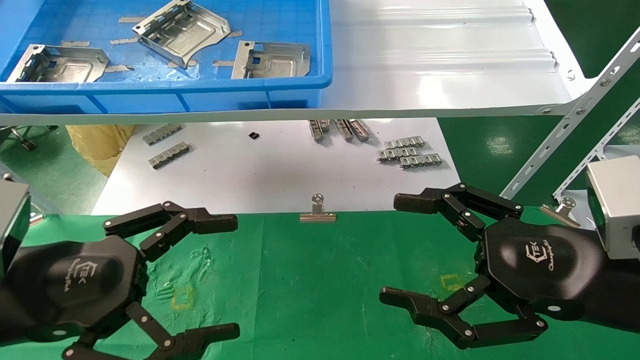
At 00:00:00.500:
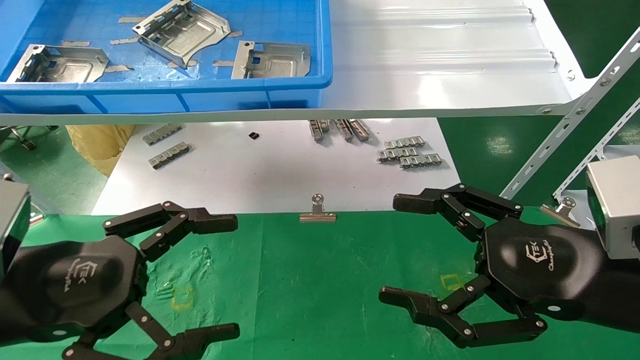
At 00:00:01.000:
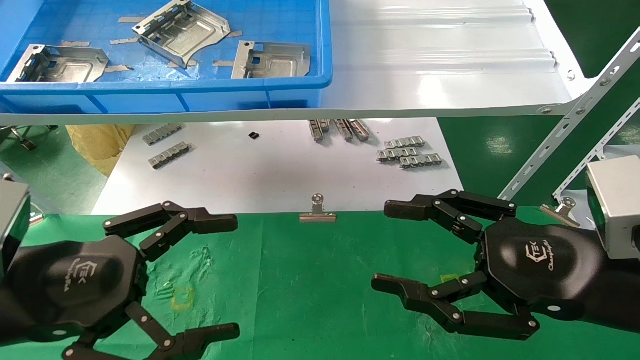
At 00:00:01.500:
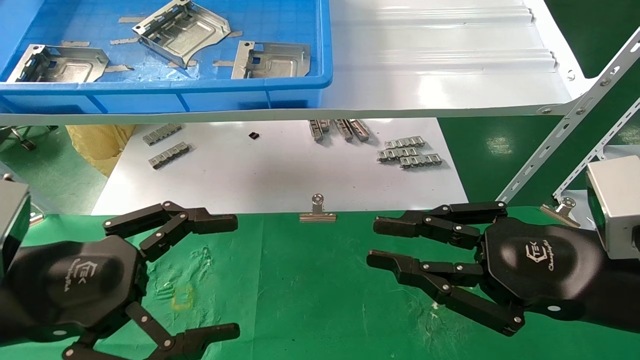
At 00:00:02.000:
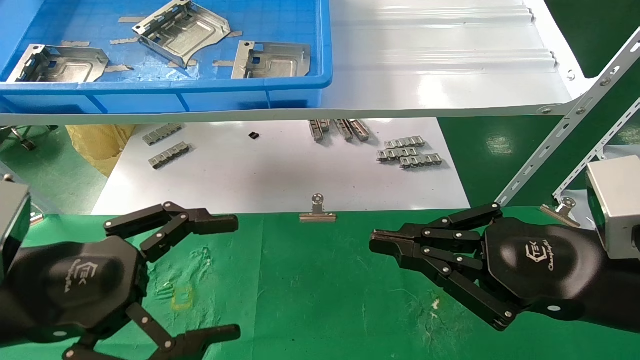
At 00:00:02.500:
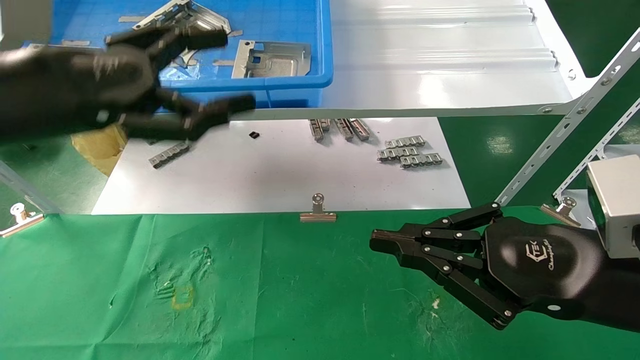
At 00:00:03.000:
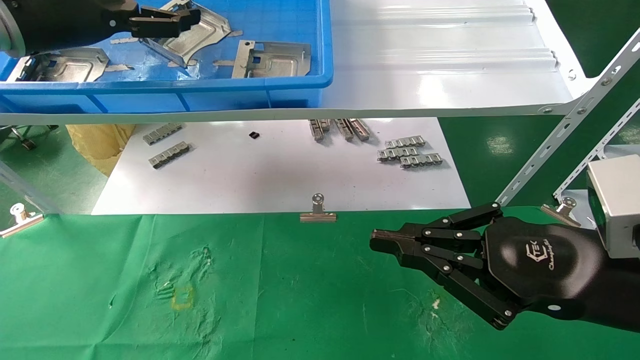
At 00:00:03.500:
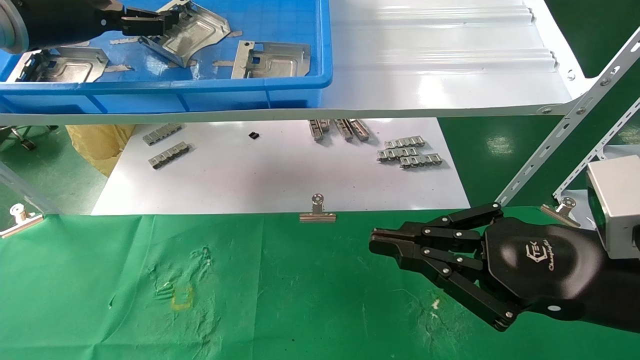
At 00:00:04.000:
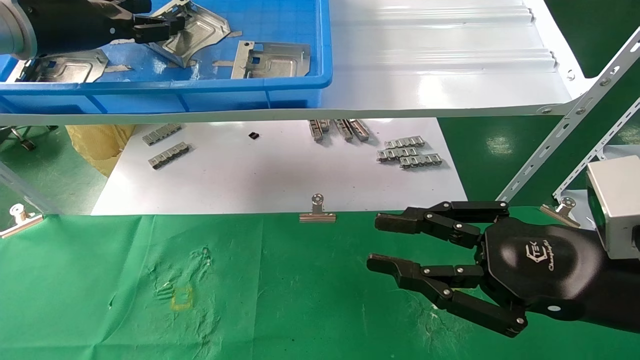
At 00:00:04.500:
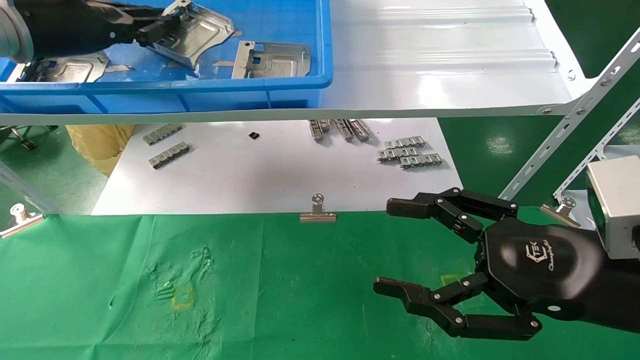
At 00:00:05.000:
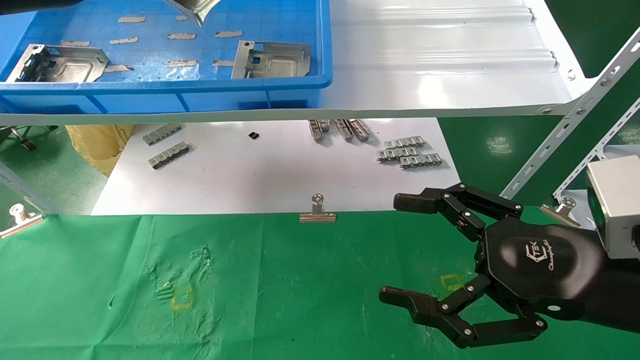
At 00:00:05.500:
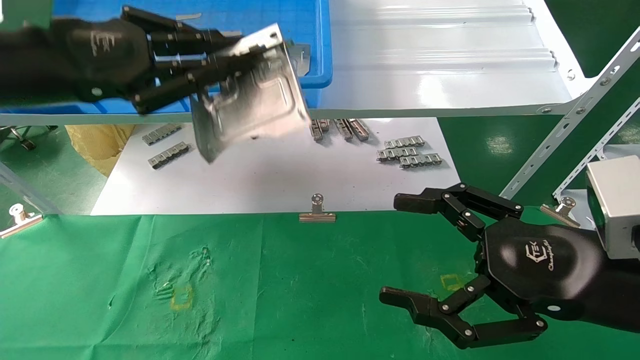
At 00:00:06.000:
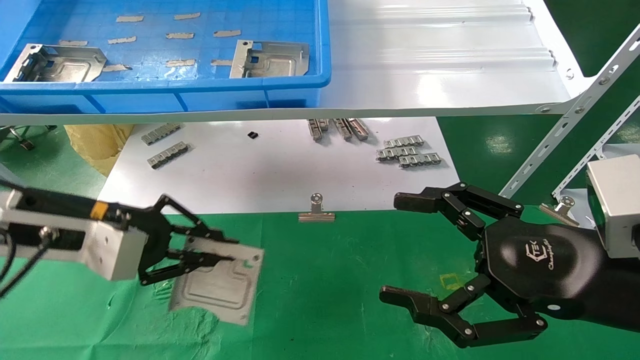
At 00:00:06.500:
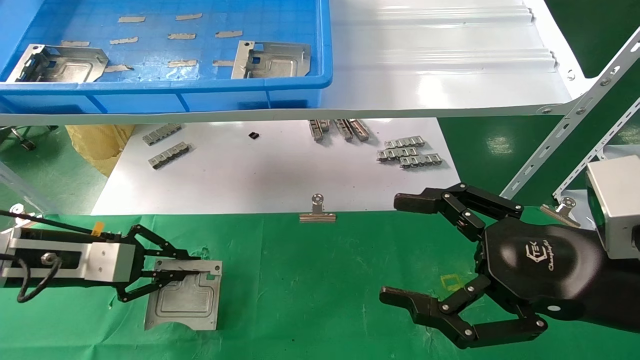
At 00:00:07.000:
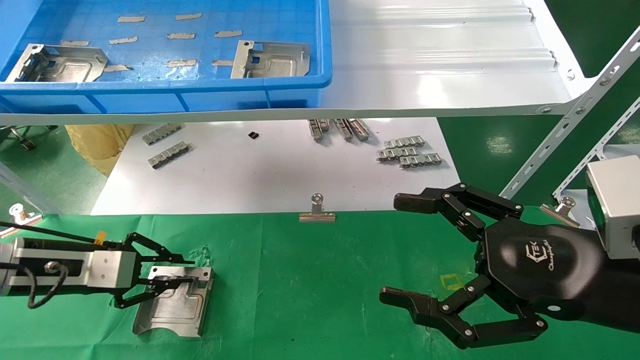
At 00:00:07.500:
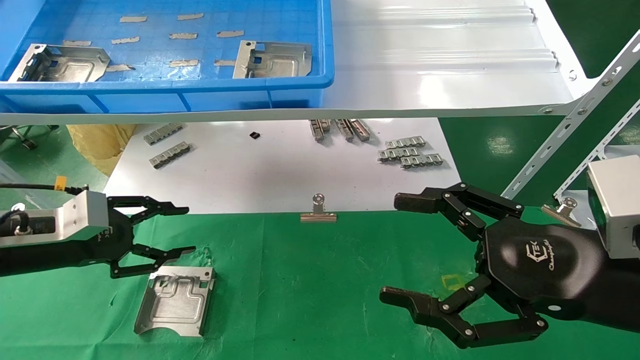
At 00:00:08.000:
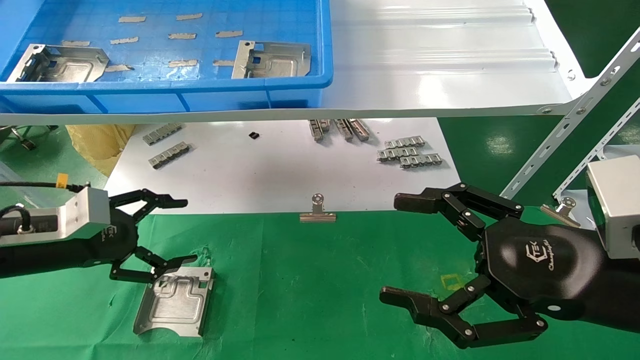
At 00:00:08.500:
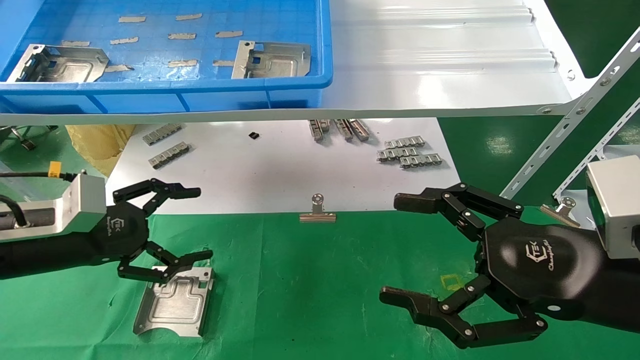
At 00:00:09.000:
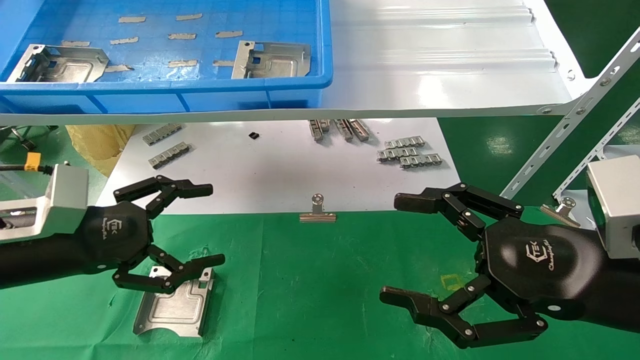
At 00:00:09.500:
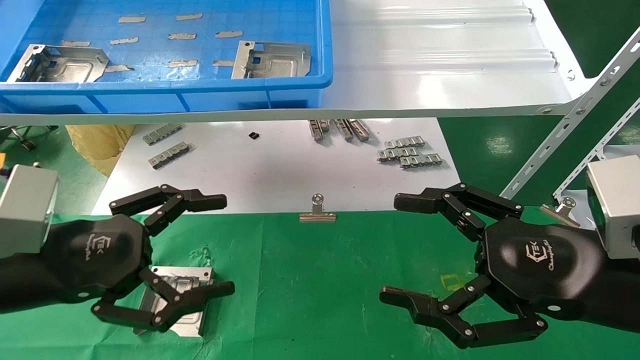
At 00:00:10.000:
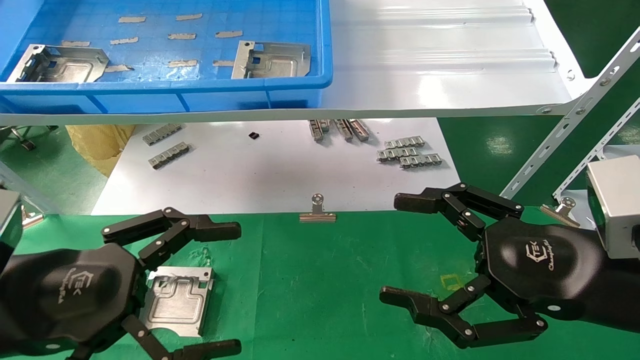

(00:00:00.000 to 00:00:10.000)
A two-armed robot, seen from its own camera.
Task of the whole recording: use the mechanical arm to pick up the parts and place them on the table.
Step, 00:00:02.500 - 00:00:04.500: Pick up the hard drive bracket from the feeding area.
Step, 00:00:05.000 - 00:00:06.500: Place the hard drive bracket into the box.
00:00:00.000 - 00:00:02.000: The right gripper closes.
00:00:02.000 - 00:00:04.000: The left gripper travels forward and upward by about 30 cm.
00:00:04.000 - 00:00:06.000: The right gripper opens; the left gripper goes about 20 cm downward and backward, and closes its fingers.
00:00:06.000 - 00:00:08.000: The left gripper travels downward and to the left by roughly 10 cm, and opens.
00:00:08.000 - 00:00:10.000: The left gripper shifts roughly 15 cm backward and to the right.

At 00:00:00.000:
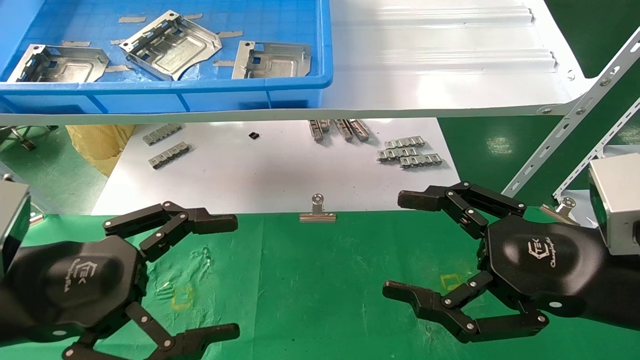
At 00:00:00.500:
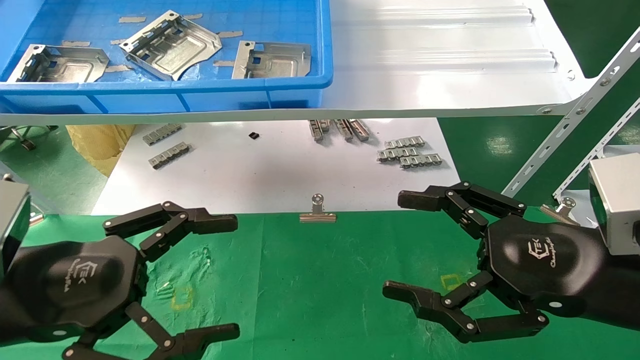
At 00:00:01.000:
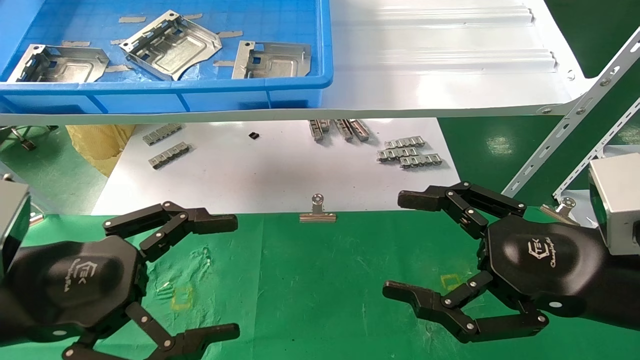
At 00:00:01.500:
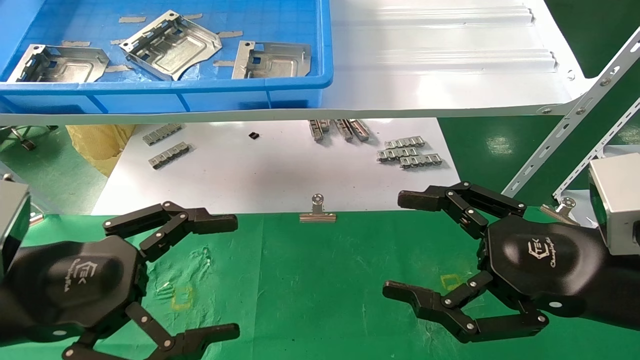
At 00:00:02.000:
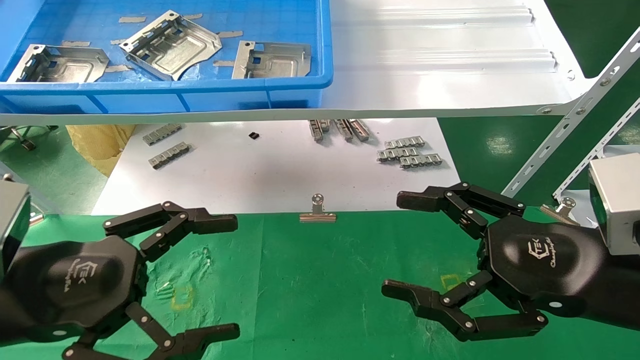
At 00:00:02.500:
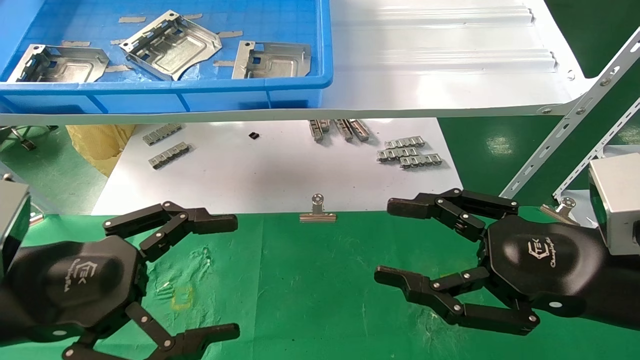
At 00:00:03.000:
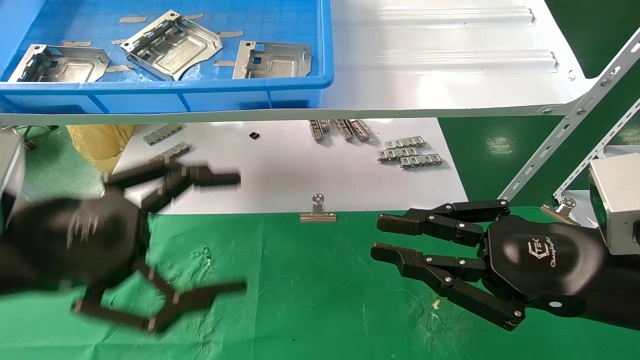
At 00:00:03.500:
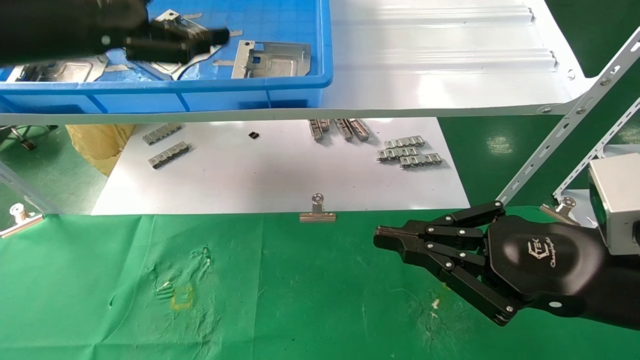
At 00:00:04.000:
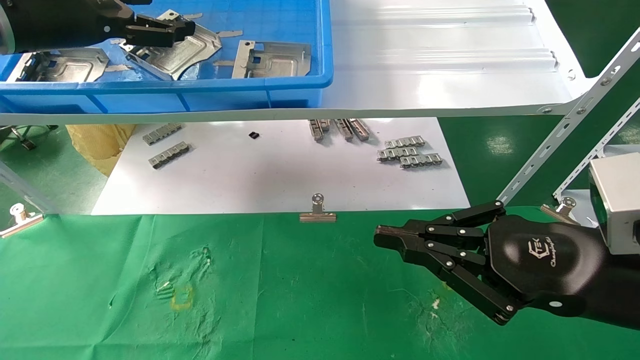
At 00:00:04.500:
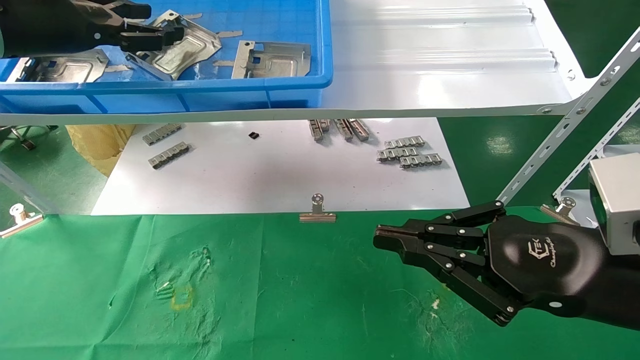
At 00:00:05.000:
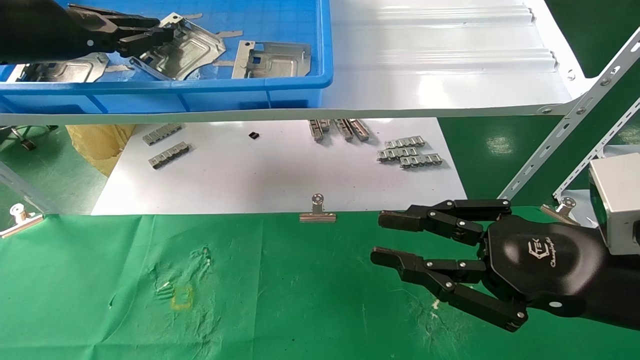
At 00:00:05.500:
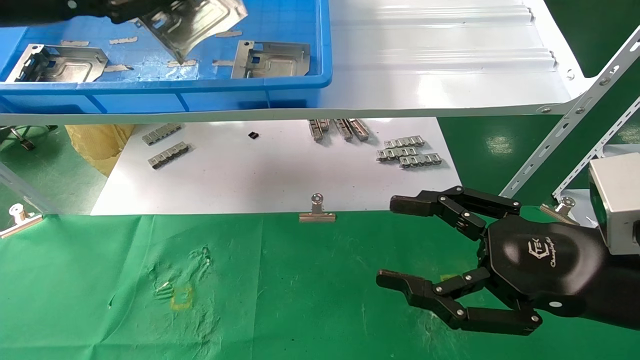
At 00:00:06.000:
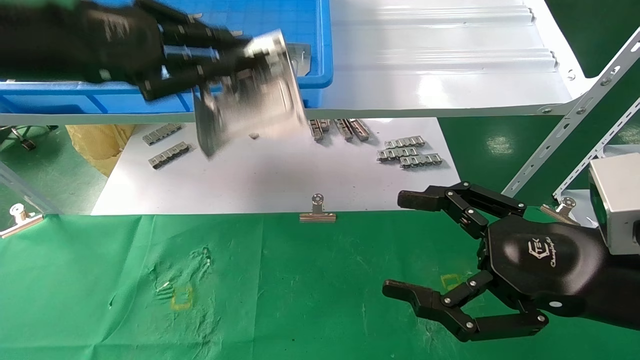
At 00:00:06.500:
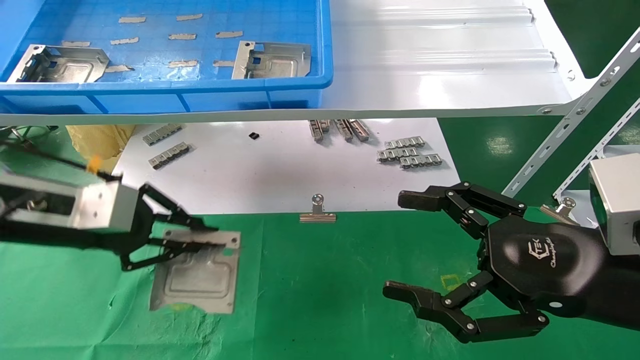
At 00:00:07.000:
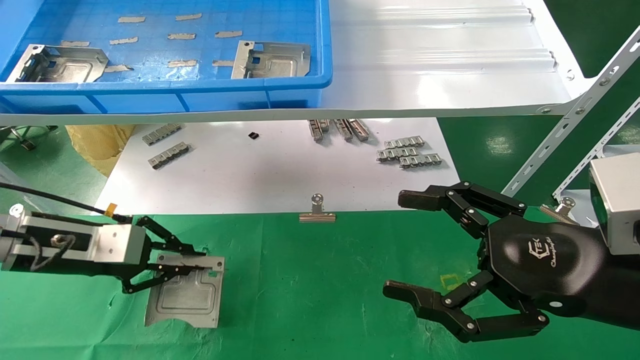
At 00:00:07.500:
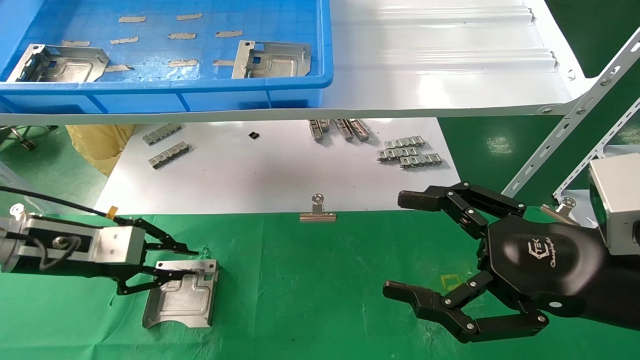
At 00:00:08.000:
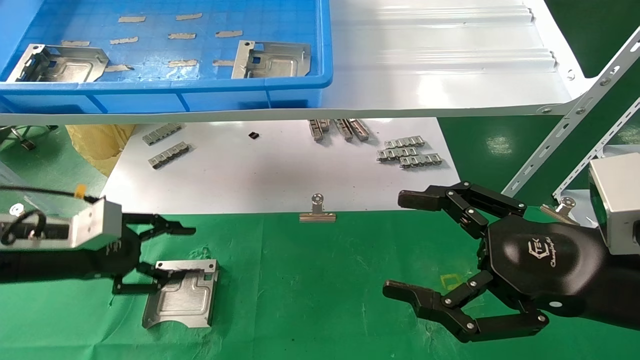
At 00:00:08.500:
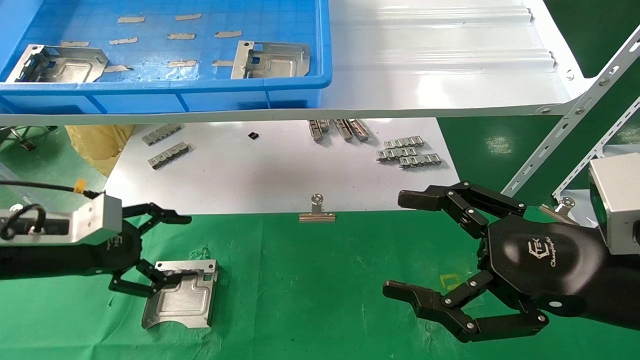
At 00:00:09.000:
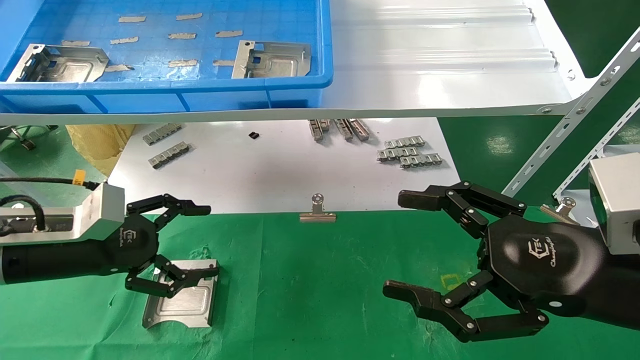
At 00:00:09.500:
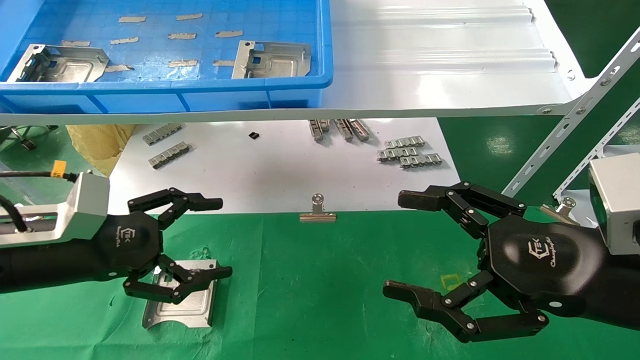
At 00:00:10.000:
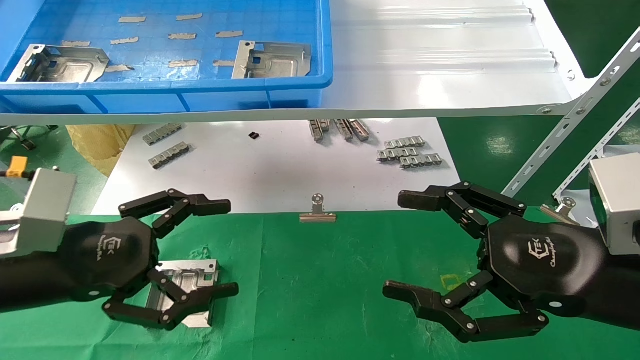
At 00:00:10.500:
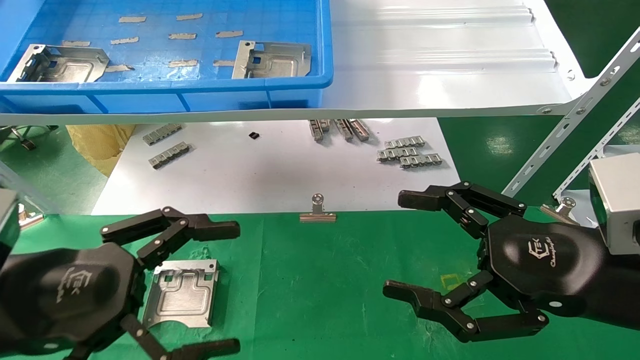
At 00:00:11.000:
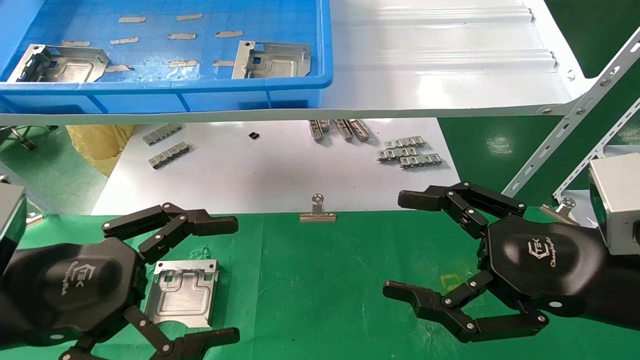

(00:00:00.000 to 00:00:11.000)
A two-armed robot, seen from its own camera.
Task of the whole recording: use the mechanical arm to pick up the parts and place them on the table.
Step, 00:00:03.500 - 00:00:05.000: Pick up the hard drive bracket from the feeding area.
Step, 00:00:05.500 - 00:00:07.500: Place the hard drive bracket into the box.
00:00:00.000 - 00:00:02.000: Both grippers stay put.
00:00:02.000 - 00:00:03.500: The right gripper closes up; the left gripper shifts some 25 cm upward and forward.
00:00:03.500 - 00:00:05.500: The right gripper opens up; the left gripper closes.
00:00:05.500 - 00:00:07.500: The left gripper goes approximately 25 cm downward, while the right gripper opens up.
00:00:07.500 - 00:00:09.000: The left gripper opens.
00:00:09.000 - 00:00:11.000: The left gripper shifts approximately 15 cm backward and to the right.
